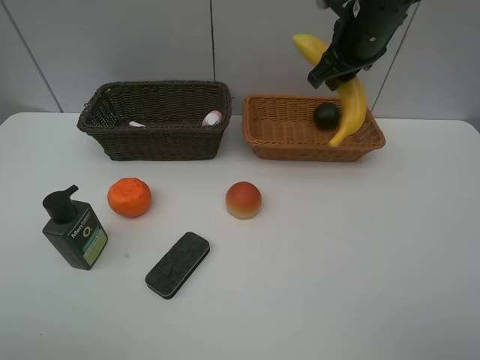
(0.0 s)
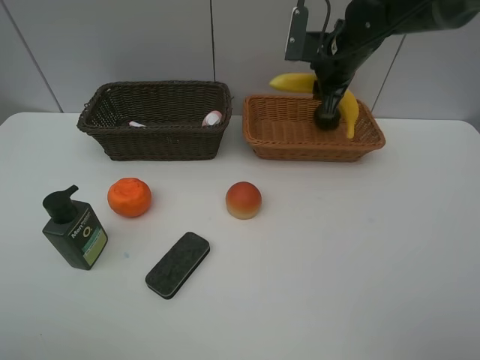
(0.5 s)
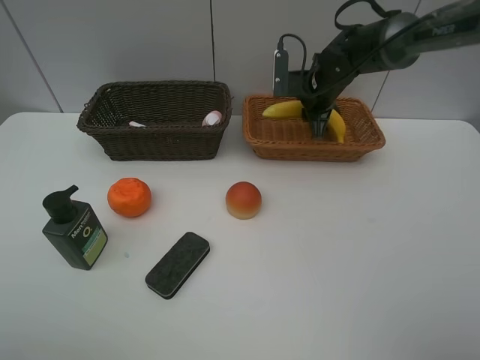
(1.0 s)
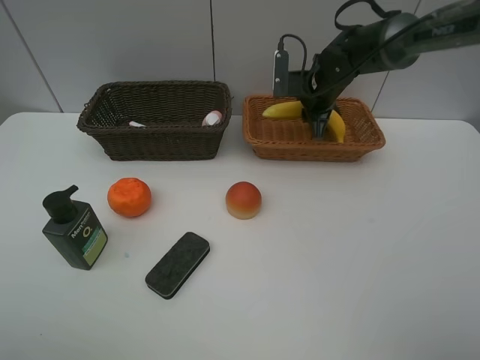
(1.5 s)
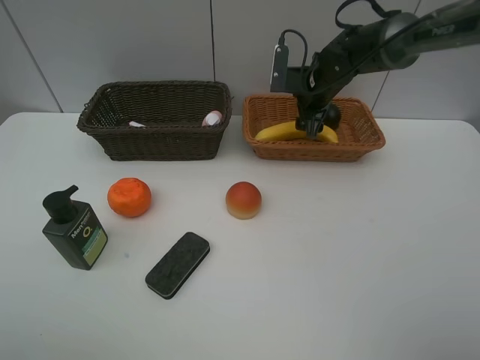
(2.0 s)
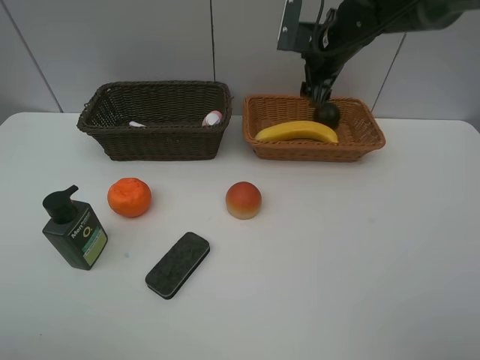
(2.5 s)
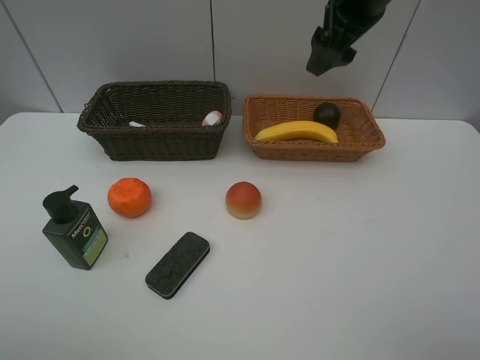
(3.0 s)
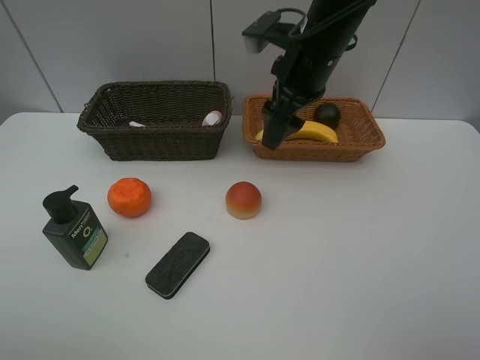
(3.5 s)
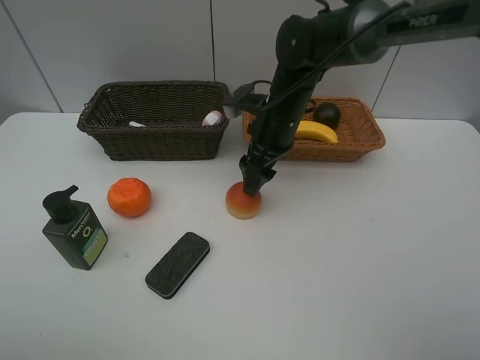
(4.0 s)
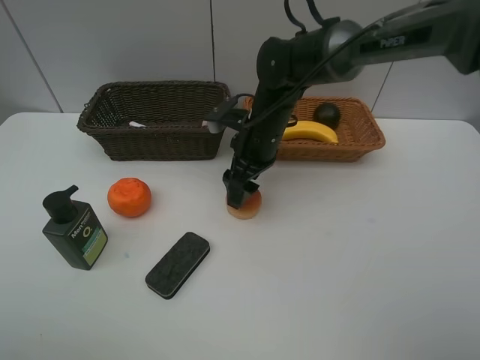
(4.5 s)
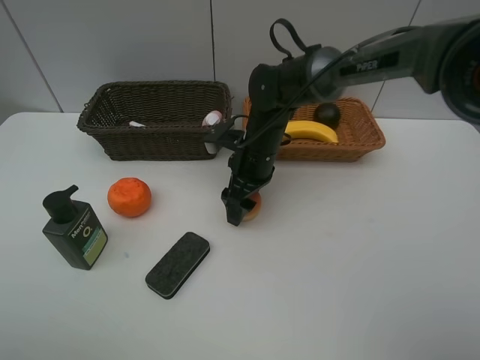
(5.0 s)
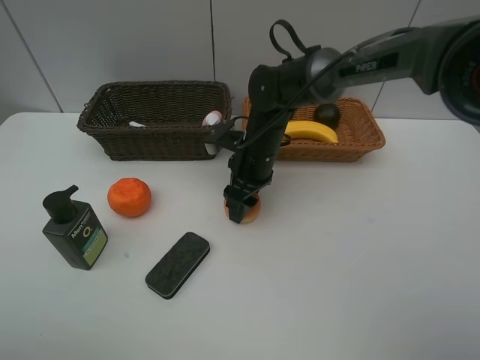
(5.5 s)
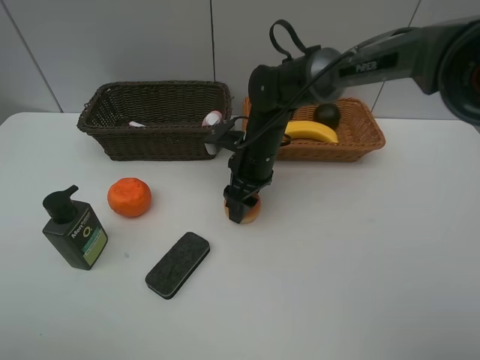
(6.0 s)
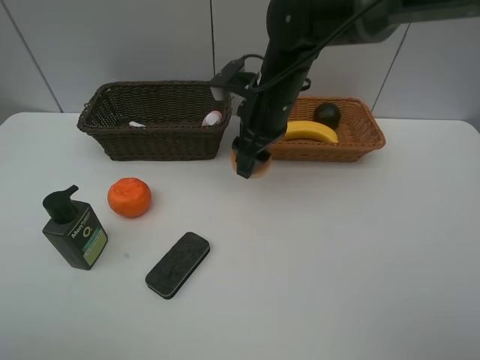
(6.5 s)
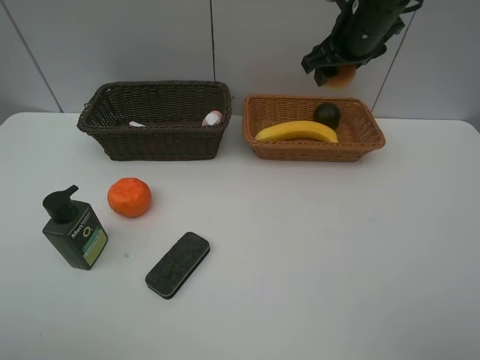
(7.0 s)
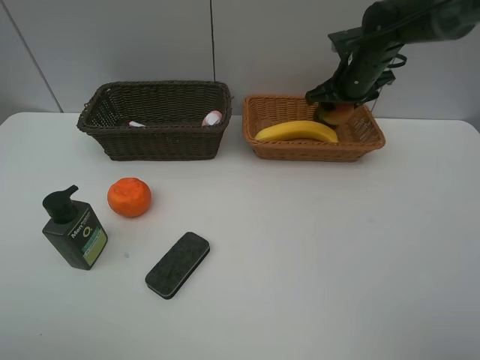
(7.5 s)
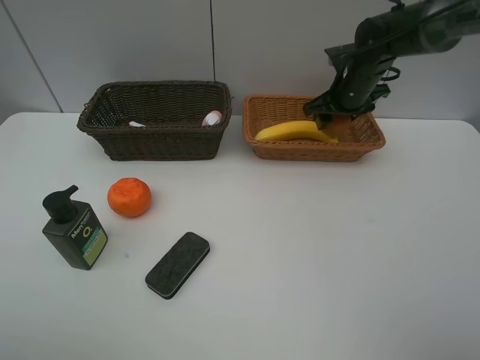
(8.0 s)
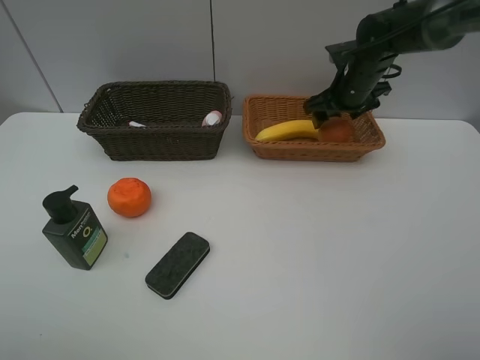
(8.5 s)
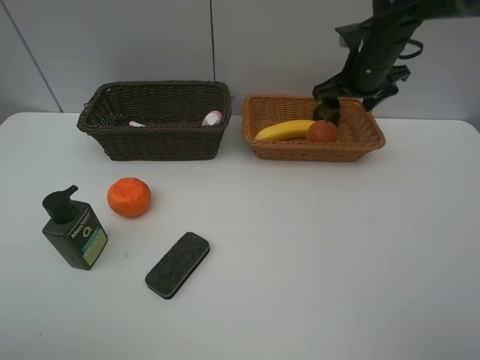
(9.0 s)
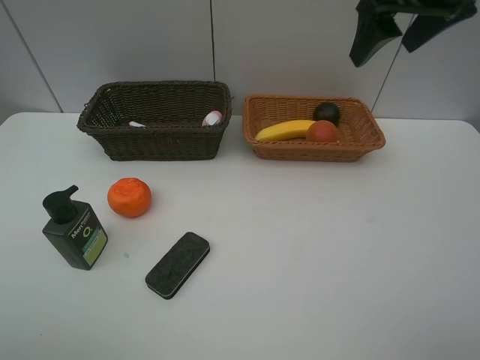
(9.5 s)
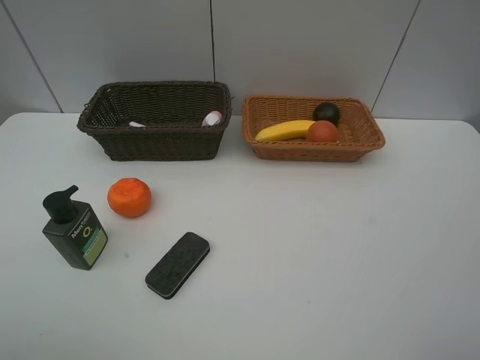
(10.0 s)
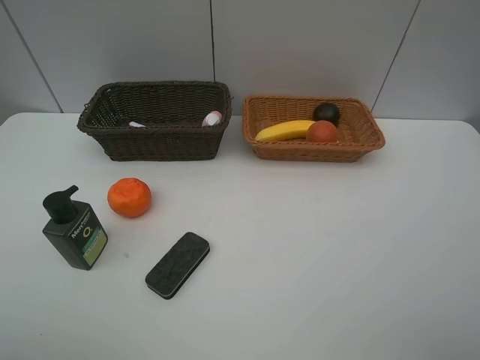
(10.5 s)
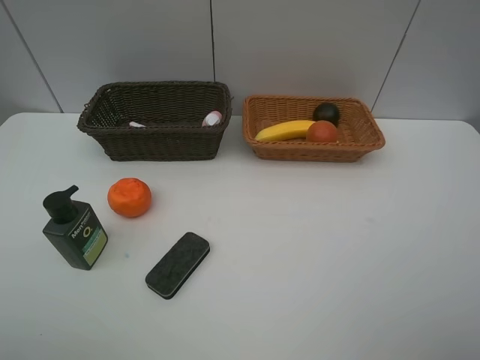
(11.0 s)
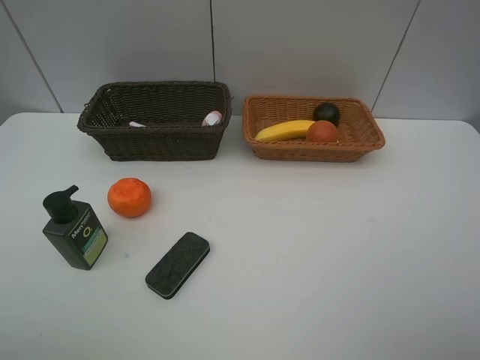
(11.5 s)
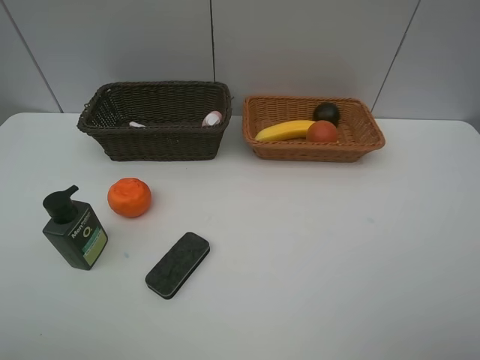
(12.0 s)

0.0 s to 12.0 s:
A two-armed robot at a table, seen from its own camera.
Task of the whole recording: Place multiple objects separately in different baskets.
Step, 0.0 to 2.0 s: Place the banana in the light basket with right gripper.
Step, 2.5 to 6.0 s: Pick up egg yolk pastry with right gripper.
Step, 6.5 to 8.5 s: Place the egg yolk pastry in the light basket with right gripper.
0.0 to 2.0 s: The right gripper heads downward and forward, covering approximately 15 cm, and opens its fingers.
2.0 to 4.0 s: The right gripper travels backward and to the left by about 15 cm, and moves approximately 20 cm upward and comes back.
4.0 to 6.0 s: The right gripper travels downward by approximately 5 cm.
6.0 to 8.0 s: The right gripper heads to the right, forward and upward, covering about 20 cm.
8.0 to 10.0 s: The right gripper is displaced backward and upward by some 40 cm.

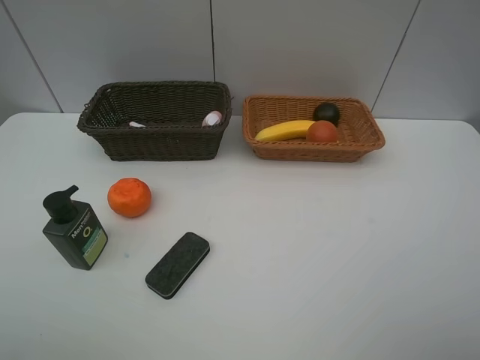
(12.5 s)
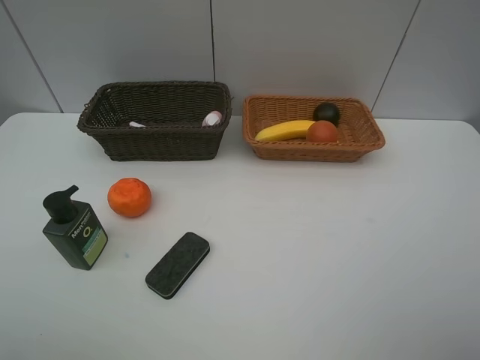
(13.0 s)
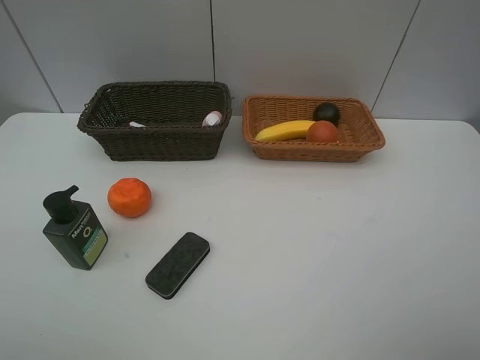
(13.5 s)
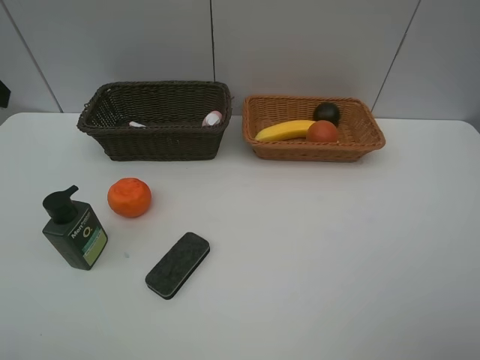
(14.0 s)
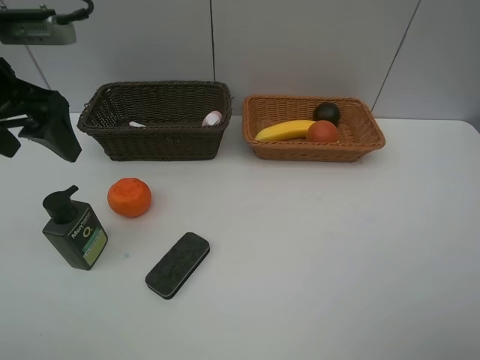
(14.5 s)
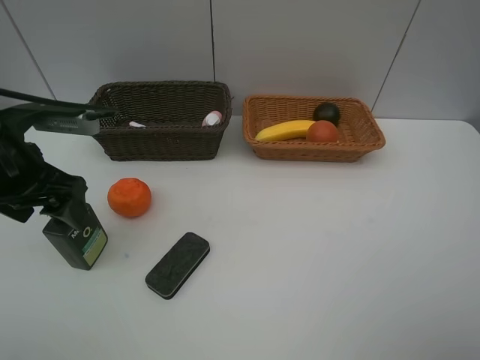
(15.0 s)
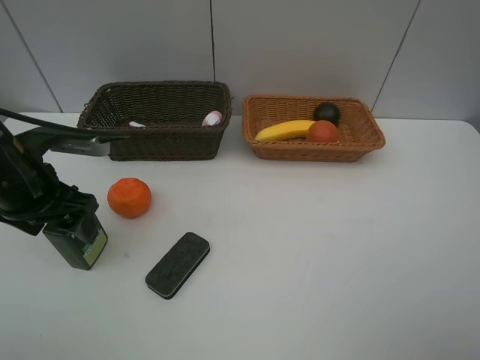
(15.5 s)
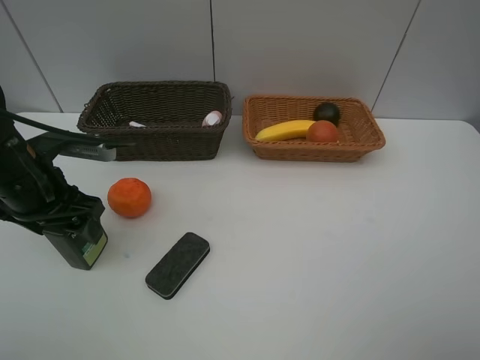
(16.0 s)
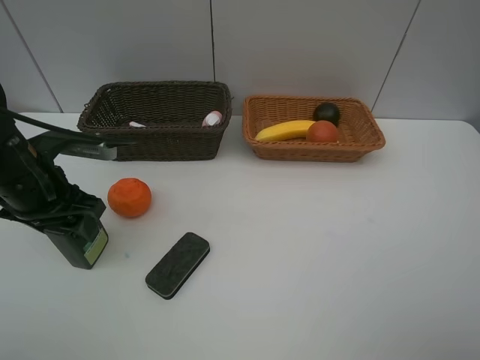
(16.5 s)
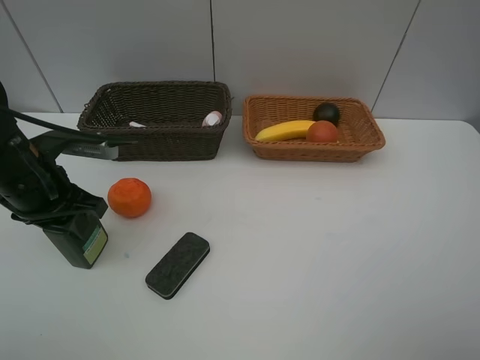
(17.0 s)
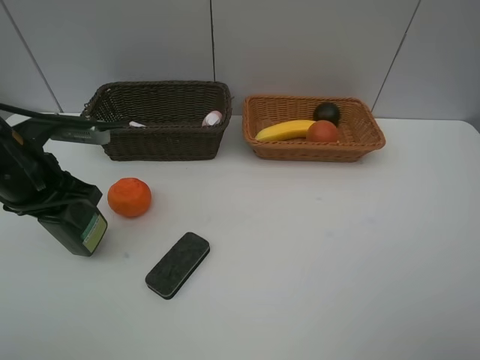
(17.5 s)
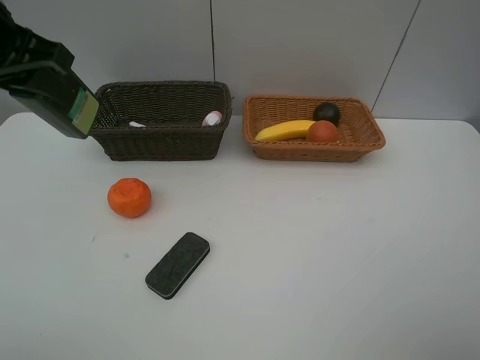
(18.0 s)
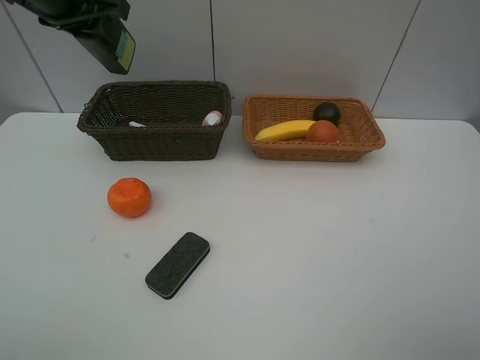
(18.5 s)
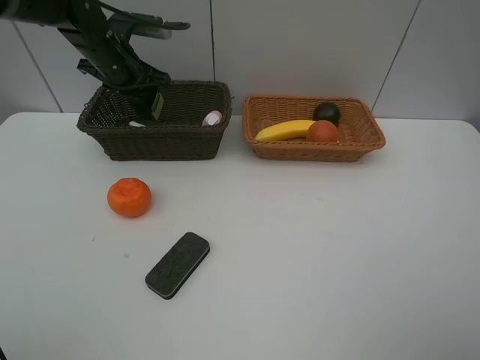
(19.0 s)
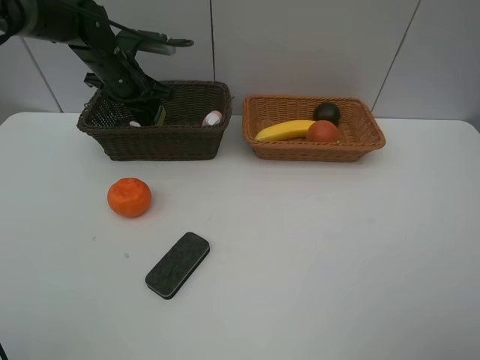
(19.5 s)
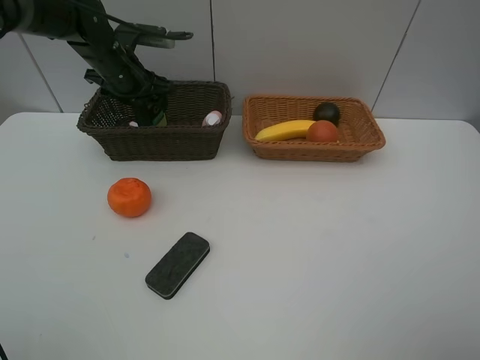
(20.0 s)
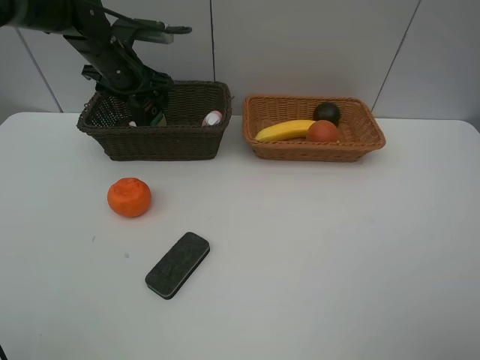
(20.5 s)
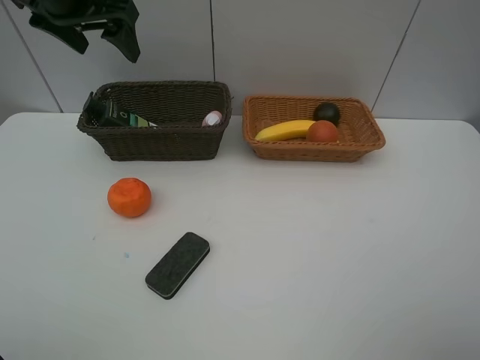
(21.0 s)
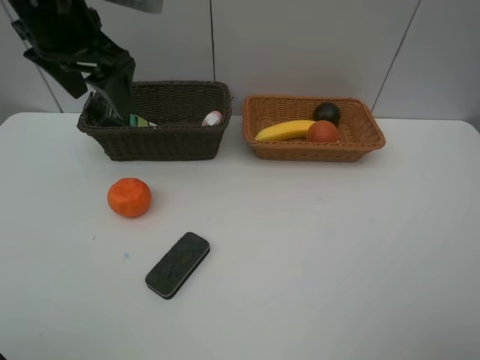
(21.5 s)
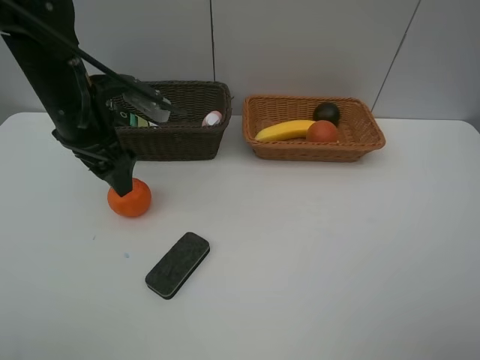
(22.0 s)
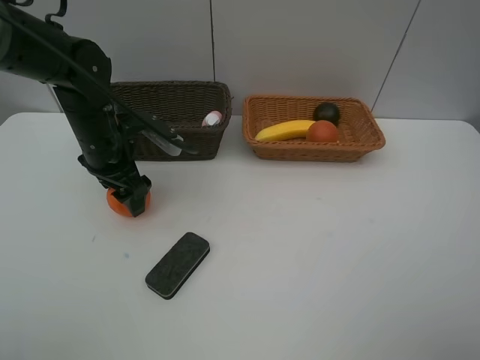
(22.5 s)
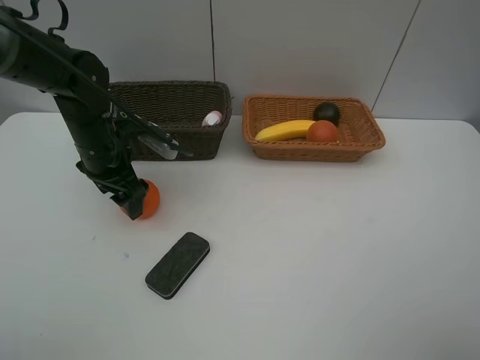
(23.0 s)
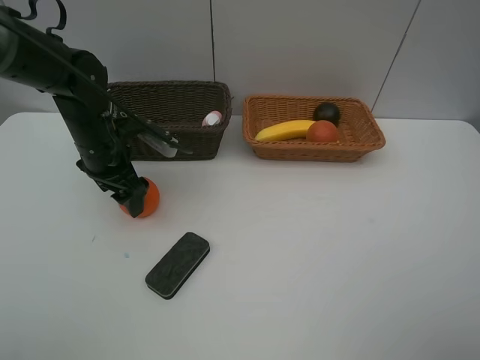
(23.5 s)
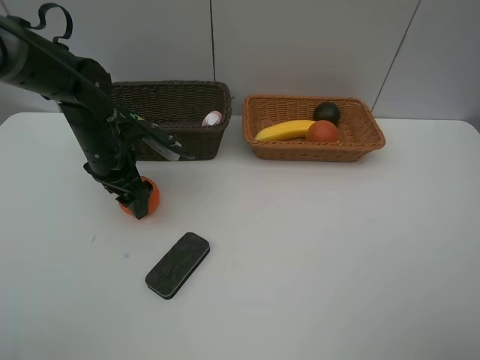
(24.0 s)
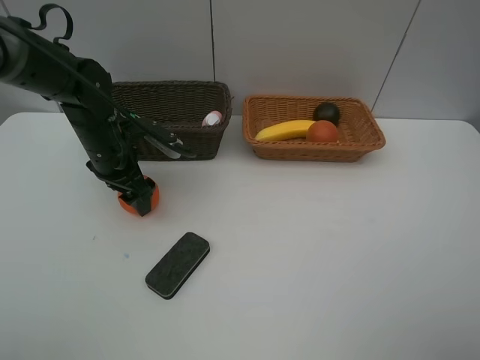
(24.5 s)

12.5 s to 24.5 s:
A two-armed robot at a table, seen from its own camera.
Task of the whole recording: Place multiple objects separately in different baskets.
Step, 12.5 to 17.5 s: Pick up the hard facial cleanser with left gripper.
Step, 18.0 to 20.5 s: Place the hard facial cleanser in the dark basket with left gripper.
12.5 to 14.5 s: The left gripper travels forward by approximately 25 cm.
14.5 to 16.5 s: The left gripper is displaced downward by some 15 cm, and closes.
16.5 to 18.5 s: The left gripper is displaced upward and forward by about 20 cm.
18.5 to 20.5 s: The left gripper shifts about 15 cm downward and forward, and opens.
20.5 to 22.5 s: The left gripper travels backward by roughly 15 cm, and moves roughly 15 cm upward and comes back.
22.5 to 24.5 s: The grippers move only a little.

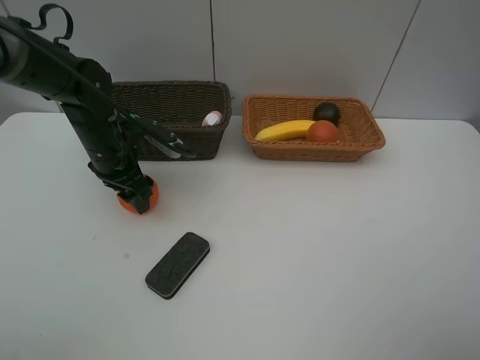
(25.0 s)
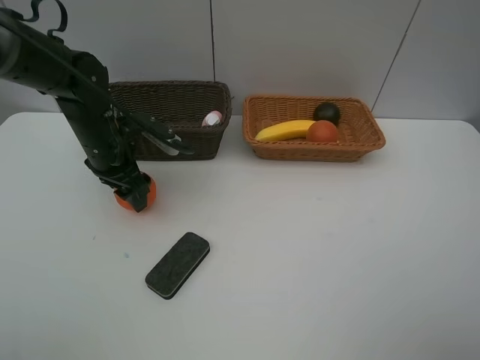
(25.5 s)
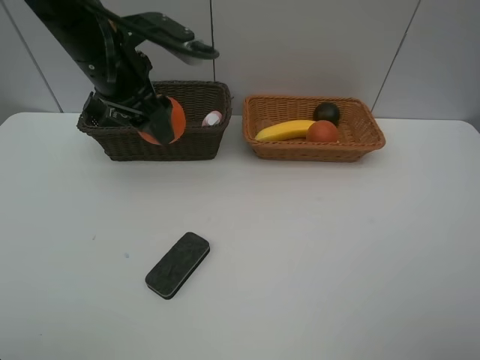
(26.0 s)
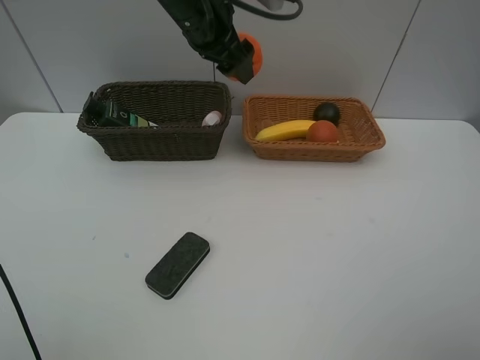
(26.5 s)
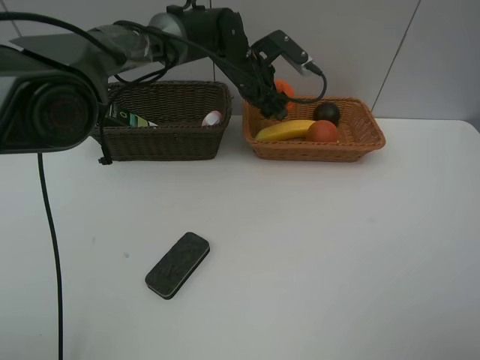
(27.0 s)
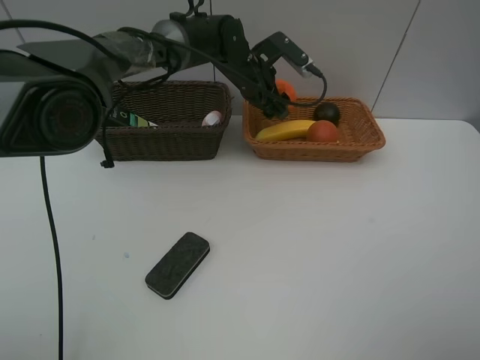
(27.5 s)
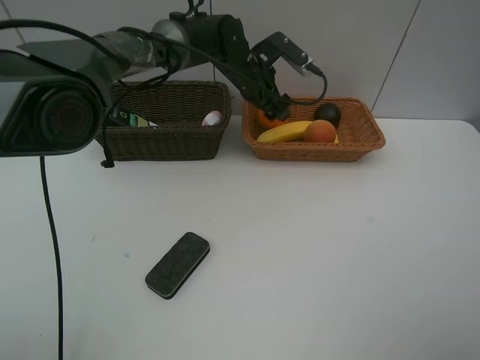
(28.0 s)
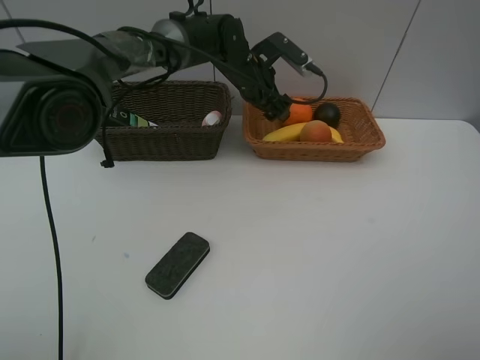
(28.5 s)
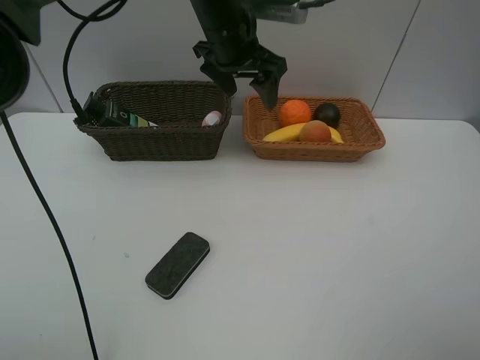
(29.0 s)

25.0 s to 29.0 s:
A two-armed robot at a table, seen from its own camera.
Task of the whole recording: Place multiple objects separately in different baskets.
Step, 26.0 to 28.5 s: Place the orange in the light basket with left gripper.
25.0 to 27.0 s: The left gripper heads to the right and forward, covering roughly 25 cm.
27.0 to 29.0 s: The left gripper moves upward and backward, some 10 cm.
